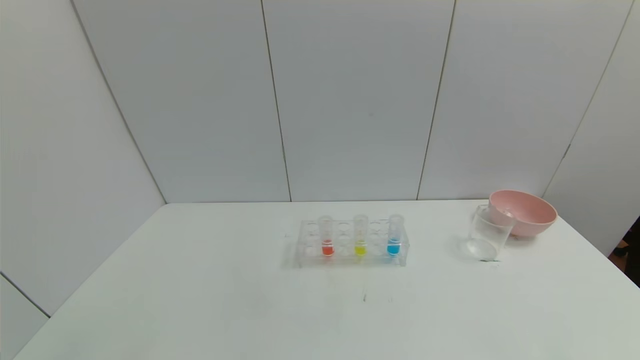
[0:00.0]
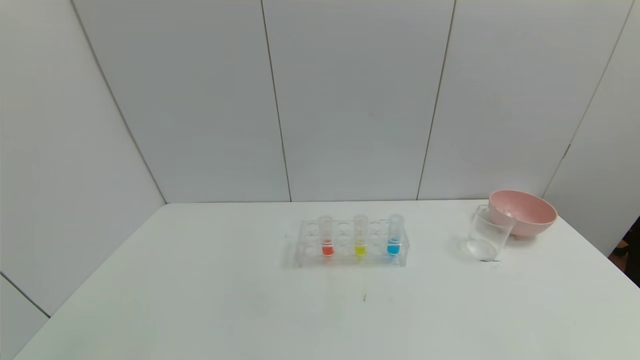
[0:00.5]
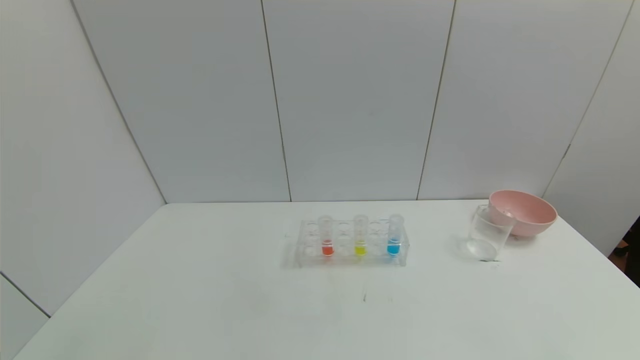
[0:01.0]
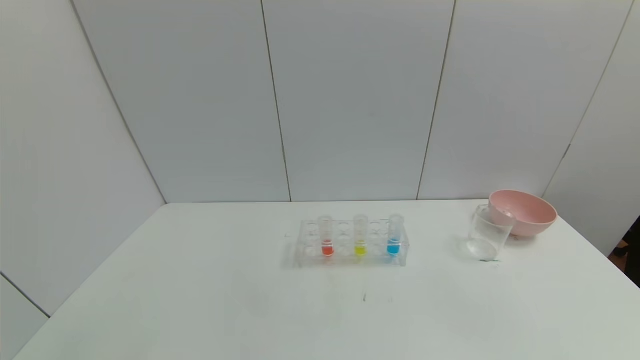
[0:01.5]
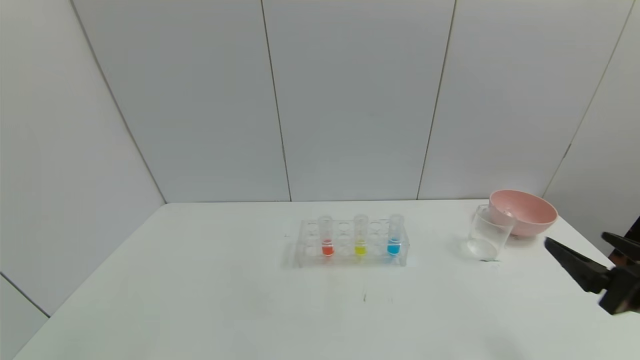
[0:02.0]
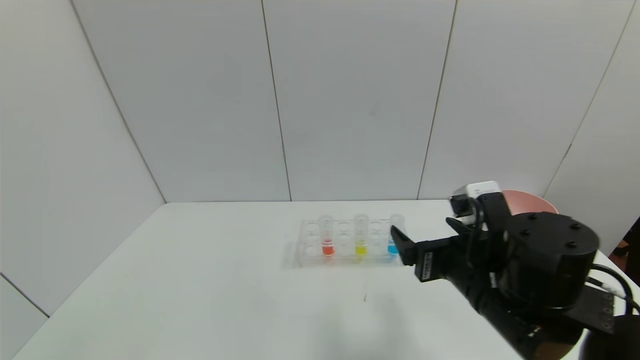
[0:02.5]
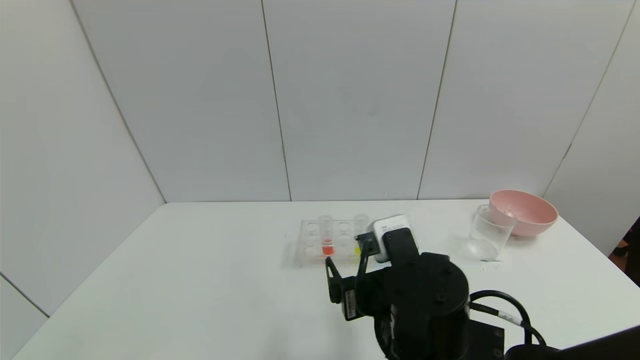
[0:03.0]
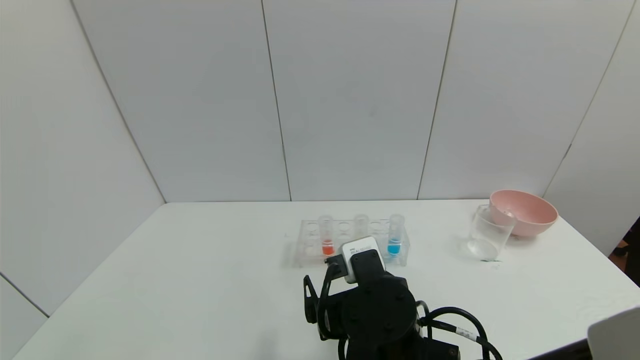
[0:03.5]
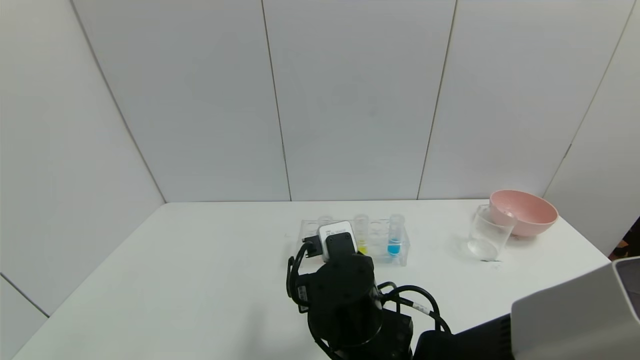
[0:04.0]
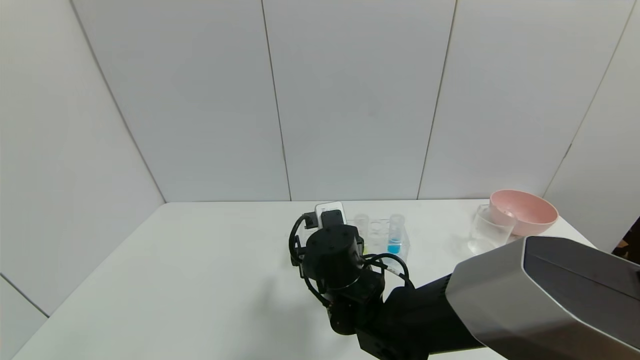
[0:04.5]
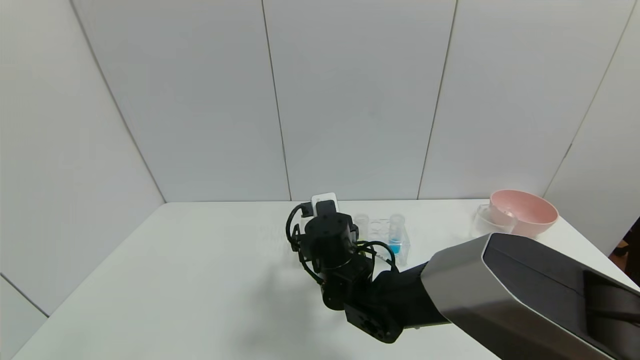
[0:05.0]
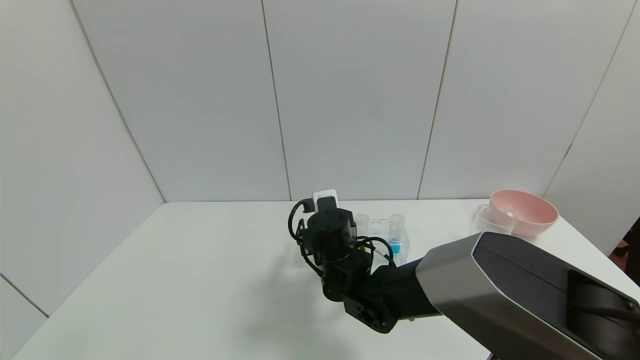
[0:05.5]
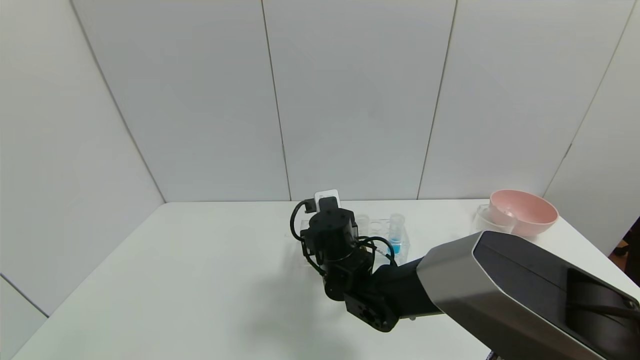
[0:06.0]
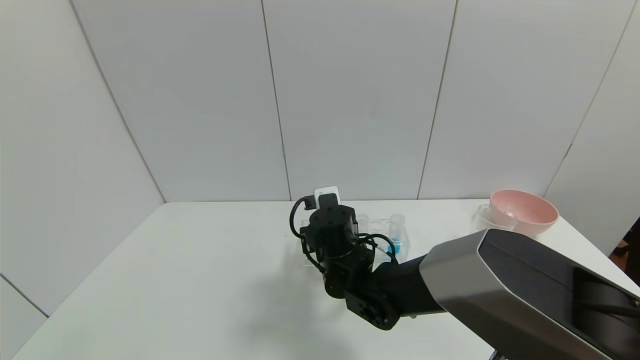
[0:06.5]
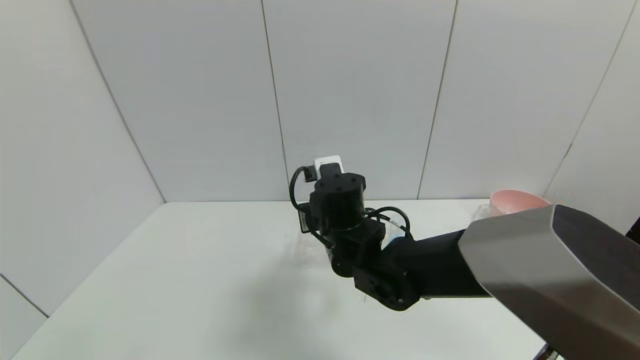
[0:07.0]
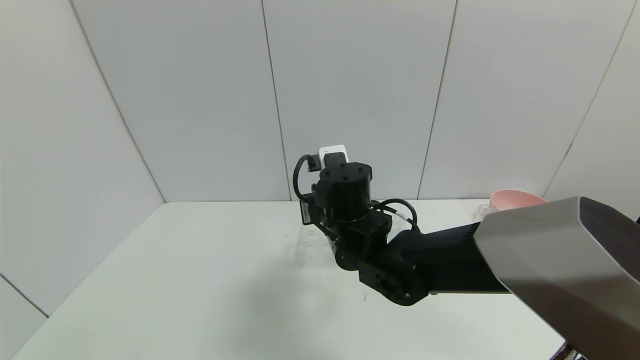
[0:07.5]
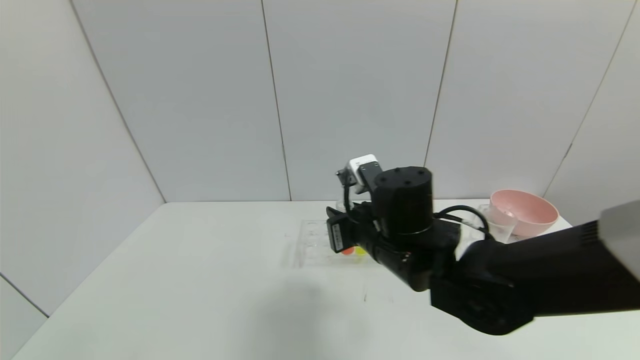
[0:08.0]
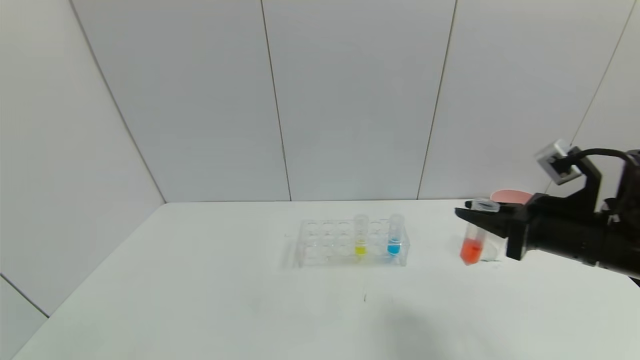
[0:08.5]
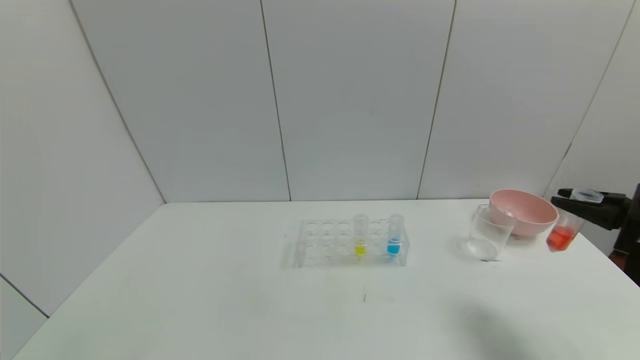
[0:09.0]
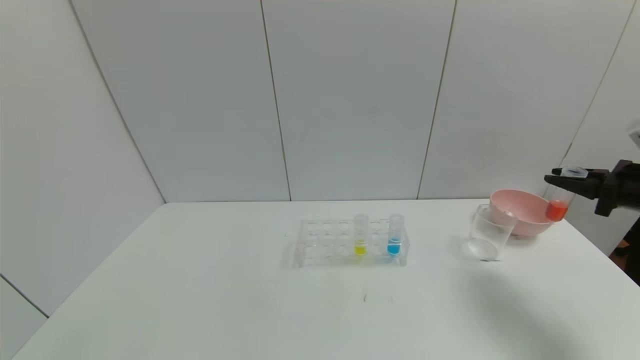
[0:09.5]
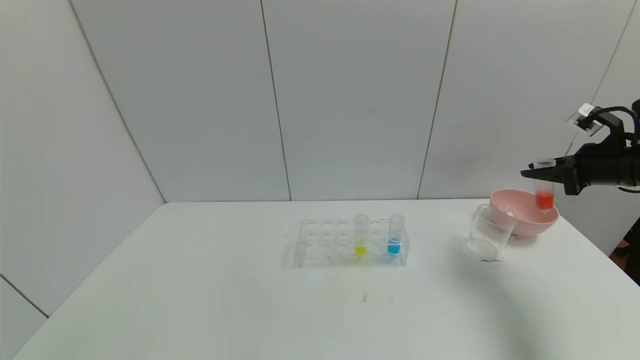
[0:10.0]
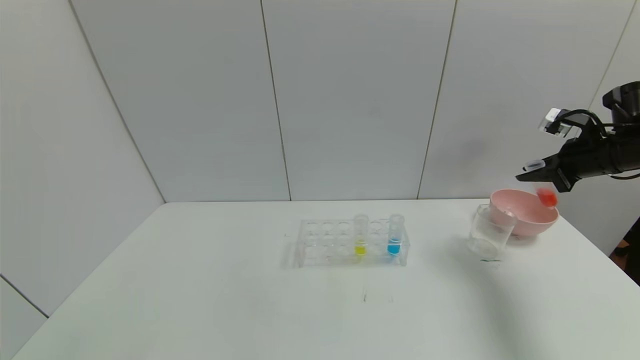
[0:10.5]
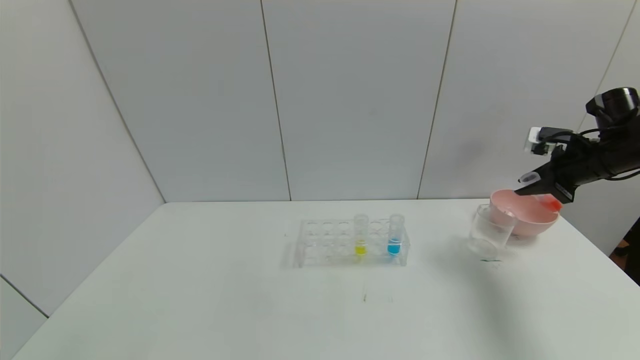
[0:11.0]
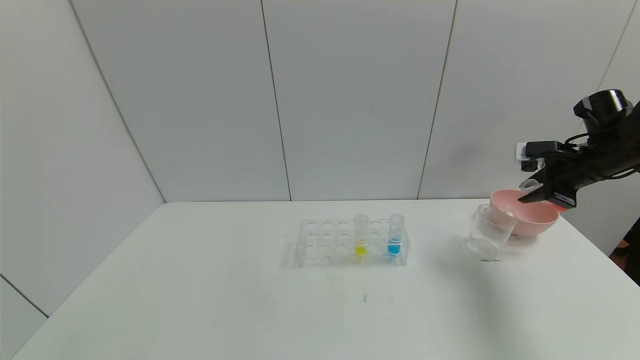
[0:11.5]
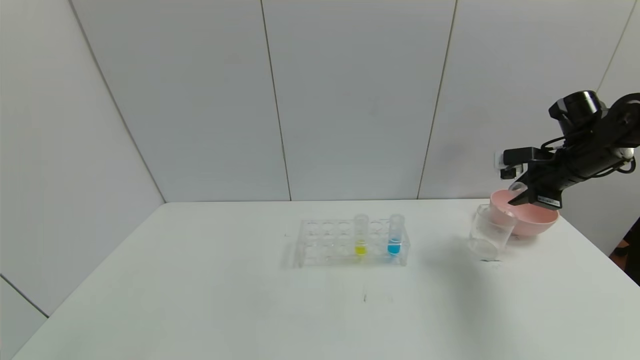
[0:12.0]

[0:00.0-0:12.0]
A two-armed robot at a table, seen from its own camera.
Task of the whole recording: pick up the test tube with red pigment and the test tube with blue pigment by grippers and pour them into the container.
Step, 0:00.0 to 0:06.0: Grasp the red reagent with the right gripper.
0:00.0 to 0:02.0: The right gripper travels forward and upward by about 20 cm.
0:02.0 to 0:04.0: The right gripper moves to the left, about 30 cm.
0:04.0 to 0:06.0: The right gripper moves forward, about 10 cm, and closes up.
0:06.0 to 0:08.0: The right gripper shifts about 15 cm upward, to the right and backward.
0:08.0 to 0:10.0: The right gripper moves to the right, some 35 cm.
0:10.0 to 0:12.0: The right gripper moves to the left, about 5 cm.

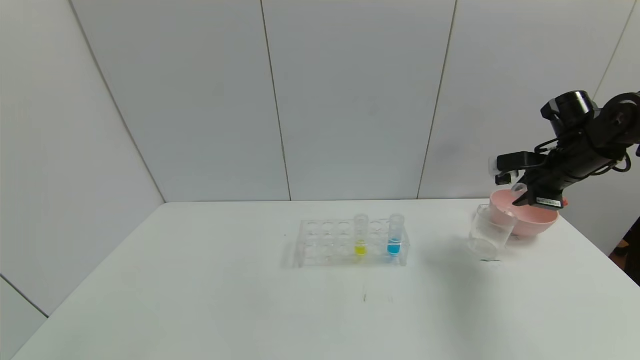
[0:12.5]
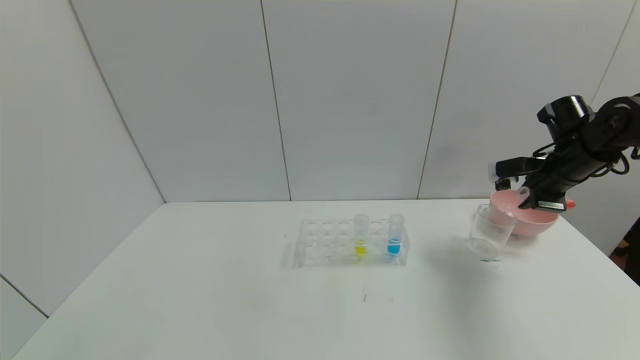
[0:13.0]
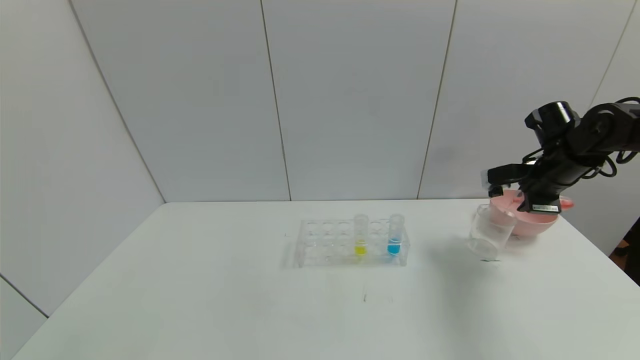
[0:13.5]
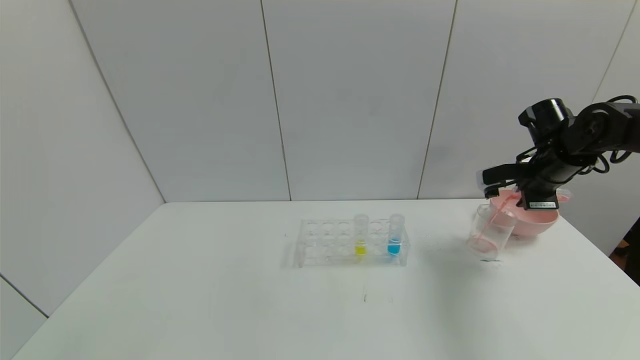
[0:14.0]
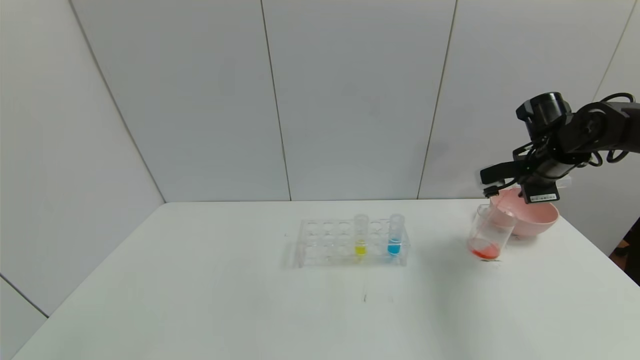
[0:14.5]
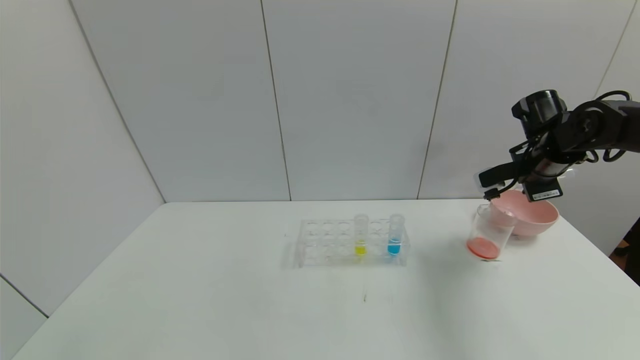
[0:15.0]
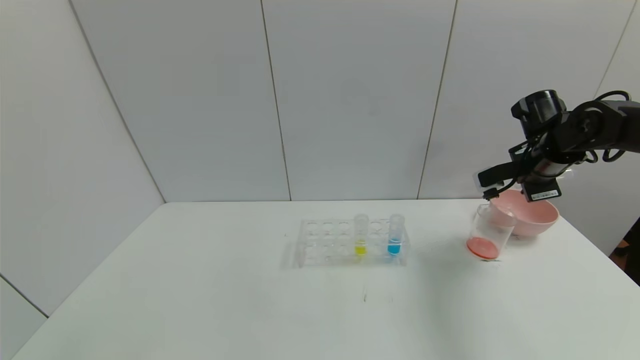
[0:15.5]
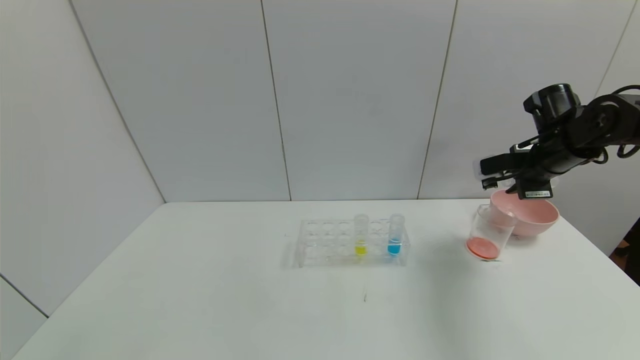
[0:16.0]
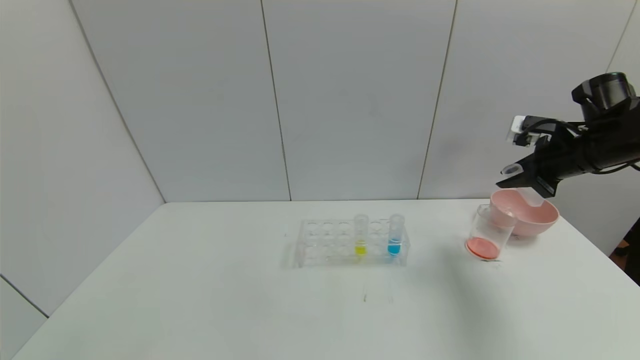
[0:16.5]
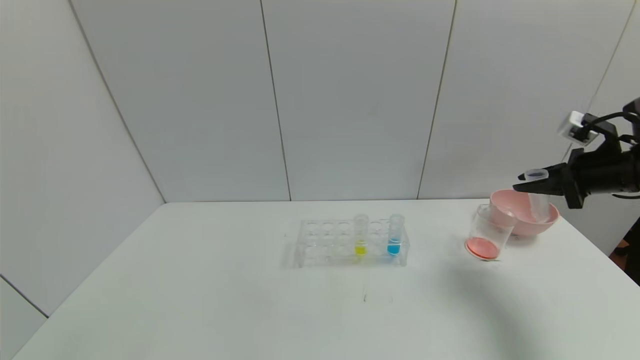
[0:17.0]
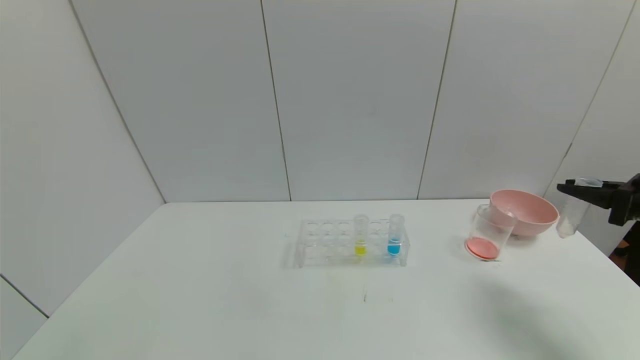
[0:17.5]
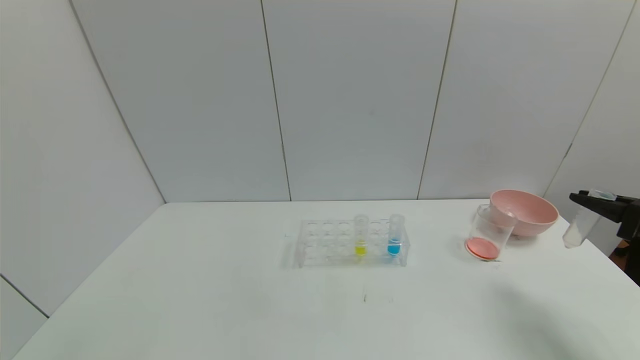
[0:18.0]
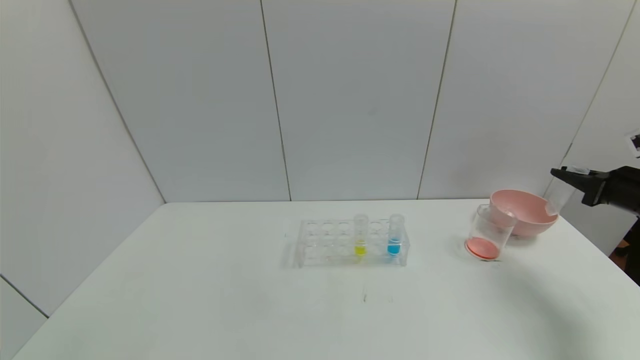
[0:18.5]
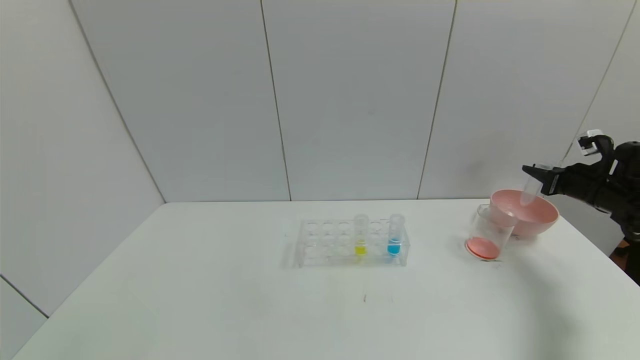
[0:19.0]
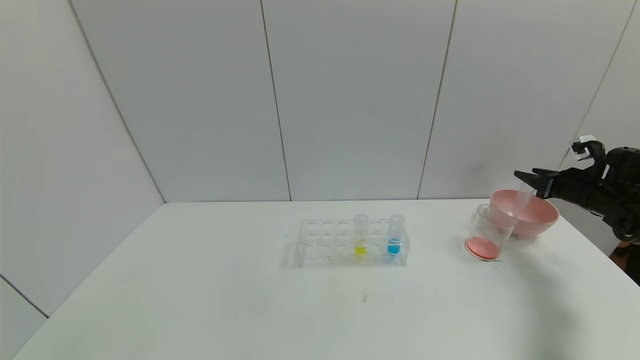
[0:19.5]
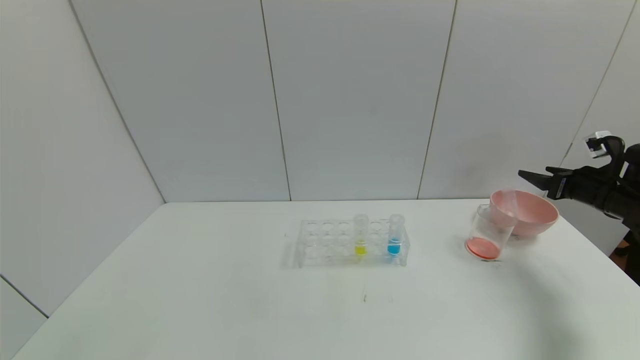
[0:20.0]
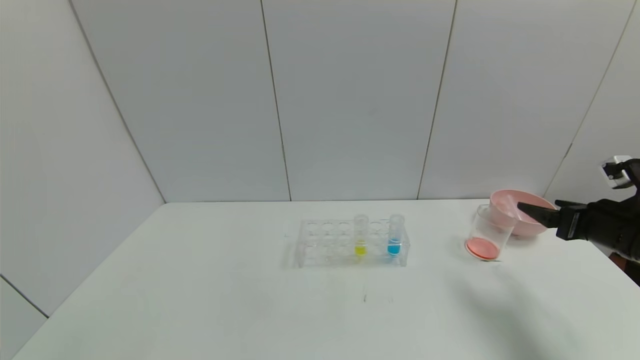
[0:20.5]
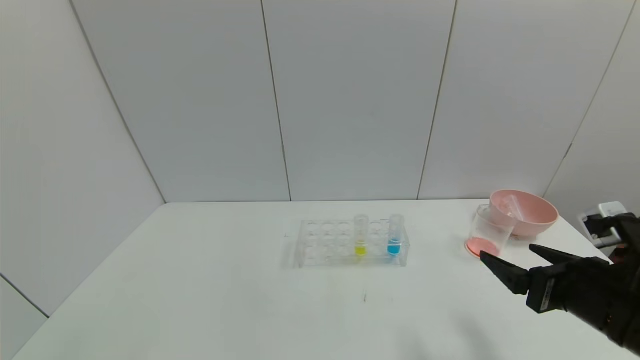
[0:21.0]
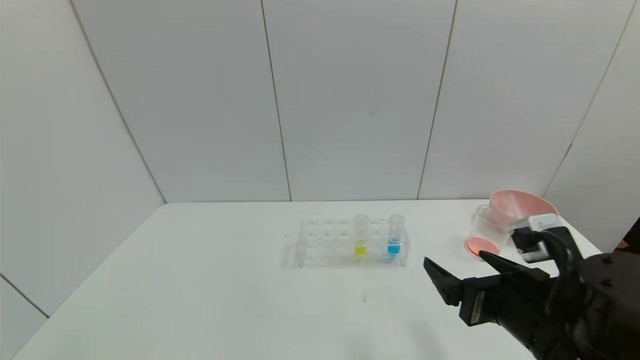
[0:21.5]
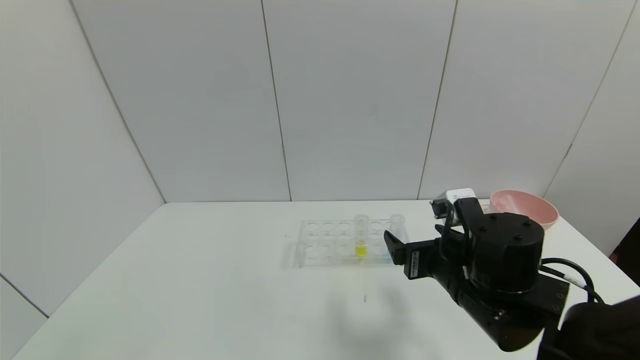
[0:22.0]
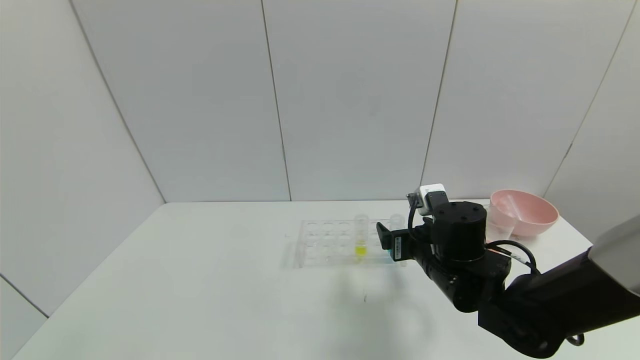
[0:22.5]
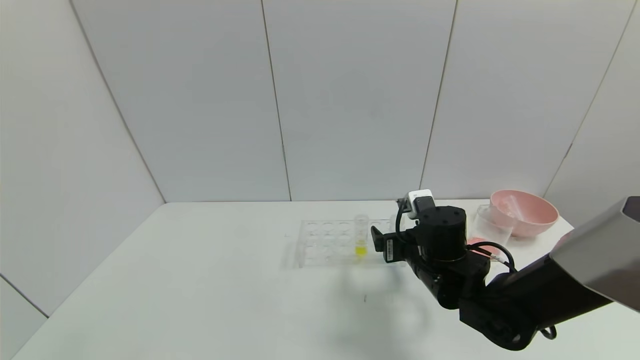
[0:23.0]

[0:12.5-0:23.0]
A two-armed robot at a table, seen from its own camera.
Task of the whole recording: pick up the test tube with red pigment and the test tube with blue pigment by grippers and pour them into the container.
Step, 0:12.5 to 0:15.5: Pour the red reagent into the graduated cylinder with the right gripper.
Step, 0:16.0 to 0:20.0: Place the test tube into the bowl with the right gripper.
0:14.5 to 0:16.5: The right gripper shifts by about 5 cm.
0:16.5 to 0:19.0: The right gripper moves to the right and downward, some 15 cm, and travels backward and back again, some 15 cm each way.
0:19.0 to 0:21.0: The right gripper goes approximately 30 cm backward and to the left, and opens its fingers.
0:21.0 to 0:23.0: The right gripper travels to the left, forward and downward by roughly 20 cm.
